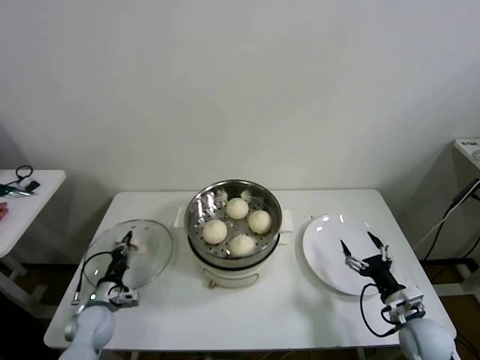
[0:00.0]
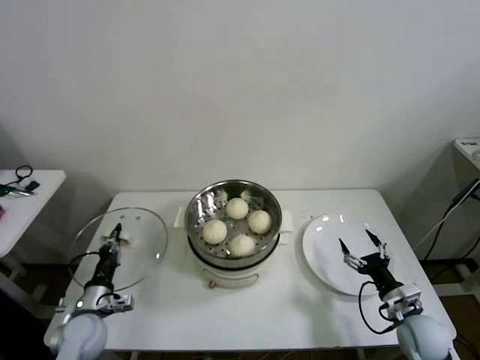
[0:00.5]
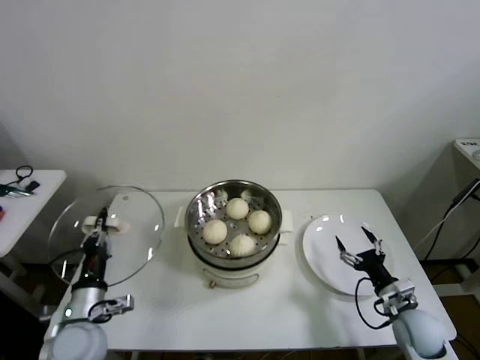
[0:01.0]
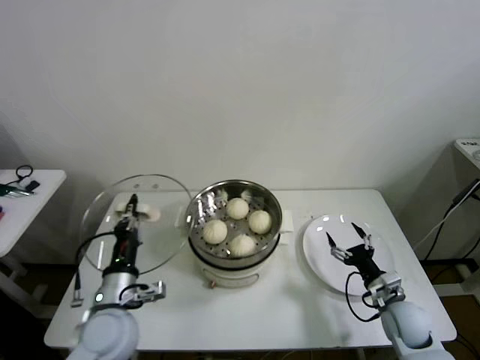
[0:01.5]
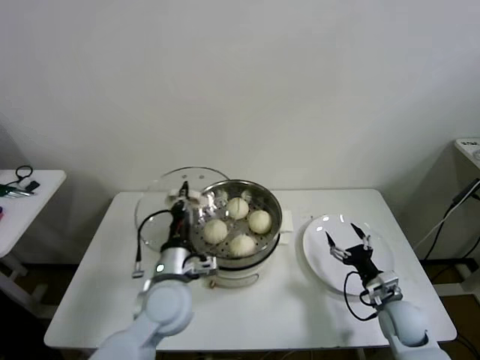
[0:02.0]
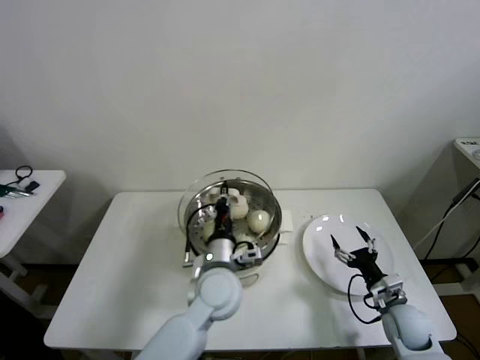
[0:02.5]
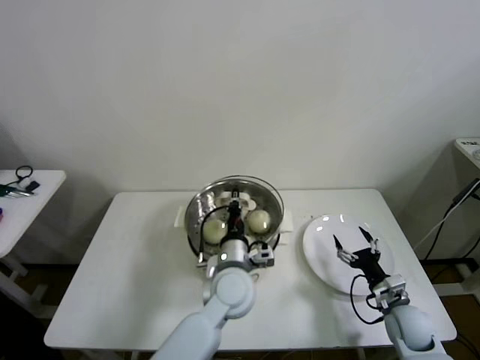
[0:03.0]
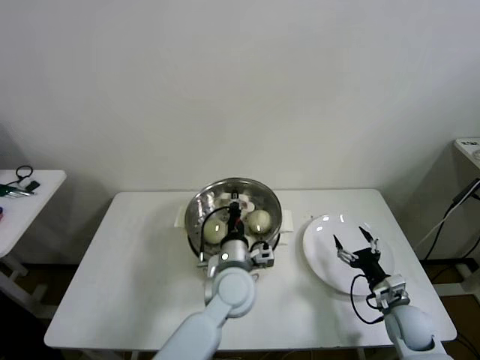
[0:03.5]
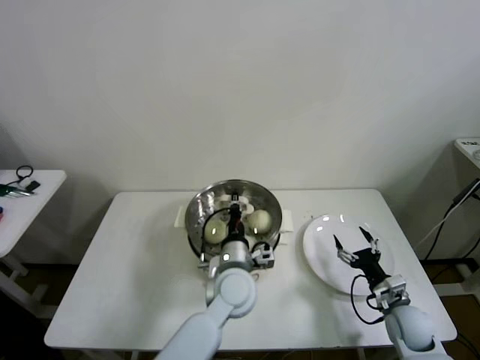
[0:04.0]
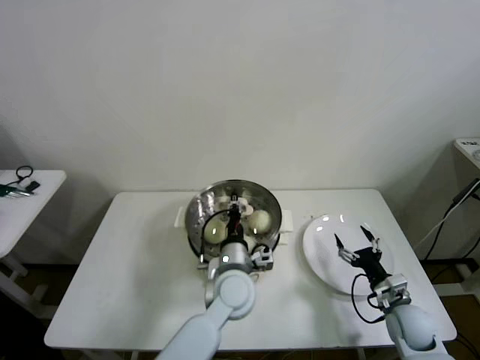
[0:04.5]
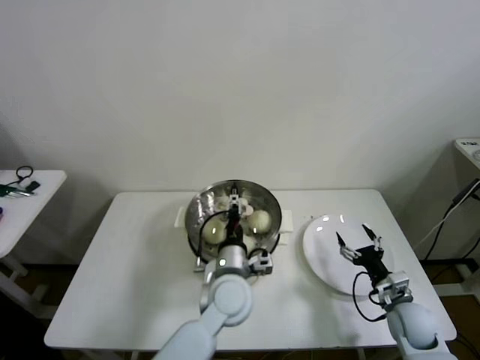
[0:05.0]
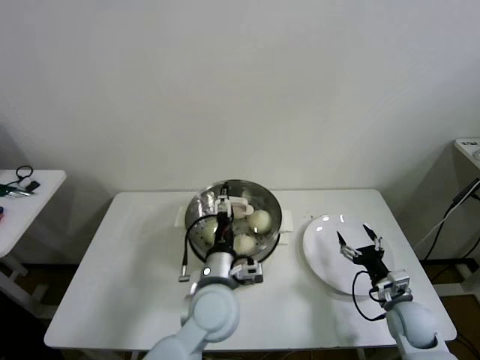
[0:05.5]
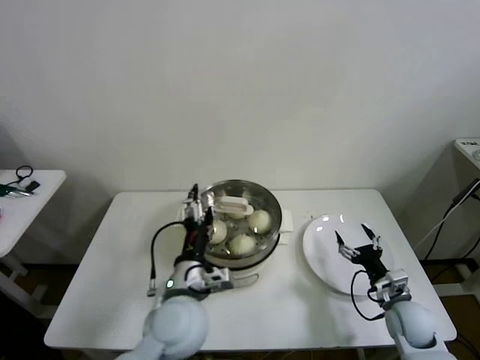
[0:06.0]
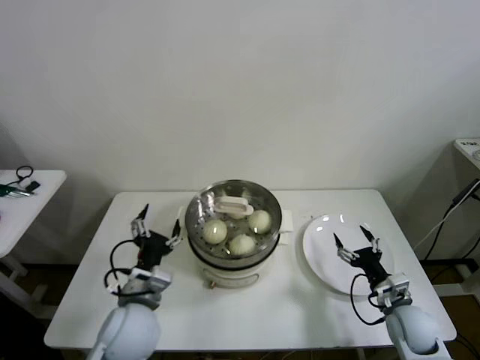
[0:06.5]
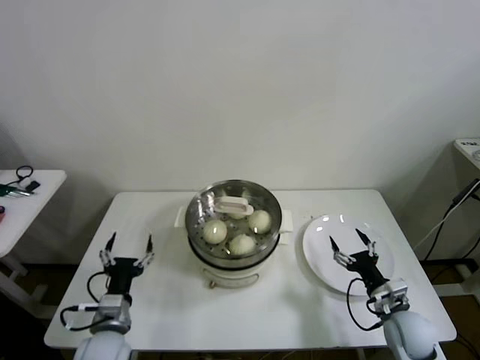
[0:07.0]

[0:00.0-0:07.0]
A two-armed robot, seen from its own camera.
Step, 0.0 to 4.5 s: Place the pot lid on the steamer with left gripper.
0.0 to 2.0 s: The left gripper heads to the right and upward, covering roughly 30 cm. Meanwhile the right gripper changes place by roughly 5 cm.
2.0 to 3.5 s: The left gripper moves to the right, roughly 15 cm.
3.5 to 5.0 s: The left gripper opens.
5.0 to 7.0 s: The left gripper goes some 25 cm to the left.

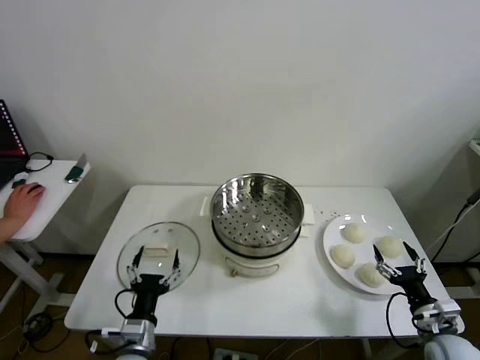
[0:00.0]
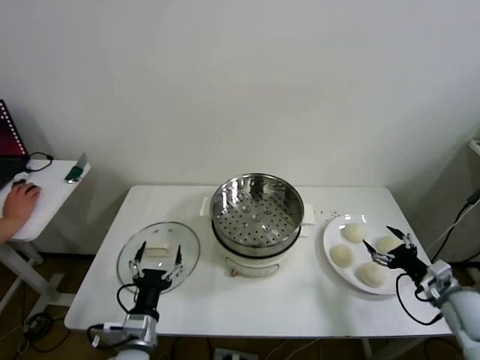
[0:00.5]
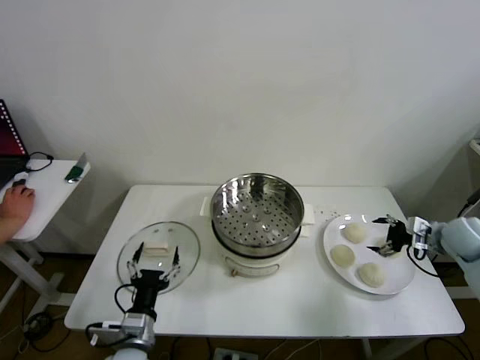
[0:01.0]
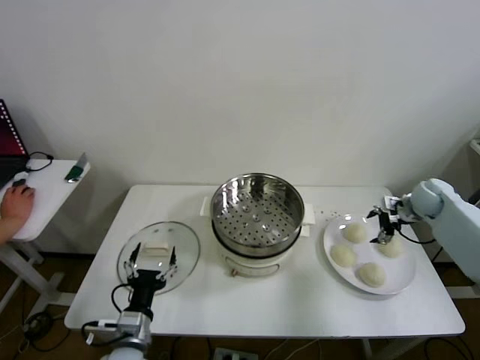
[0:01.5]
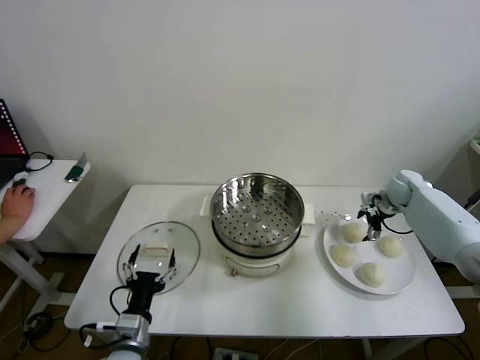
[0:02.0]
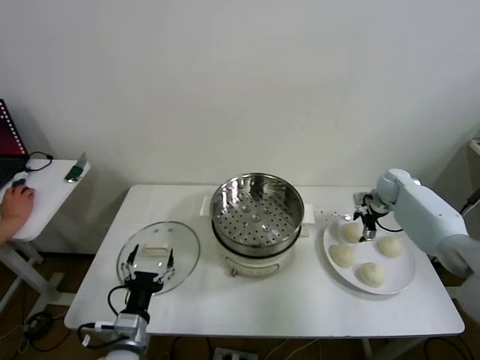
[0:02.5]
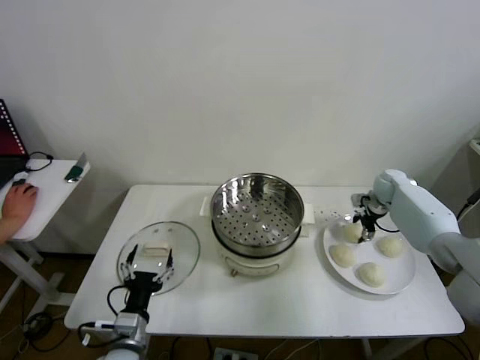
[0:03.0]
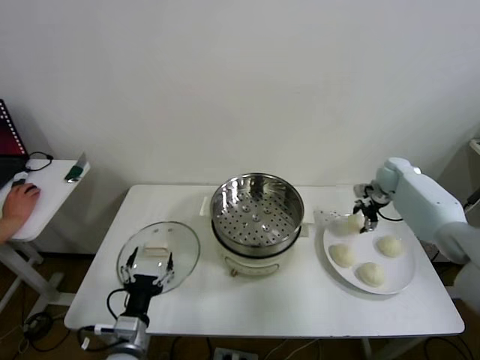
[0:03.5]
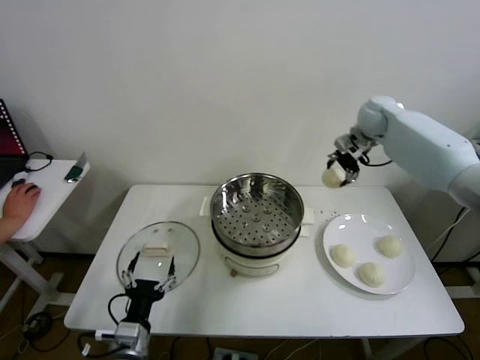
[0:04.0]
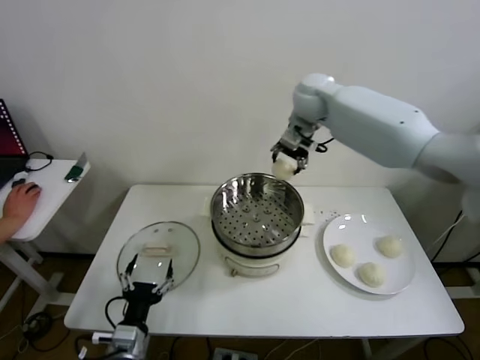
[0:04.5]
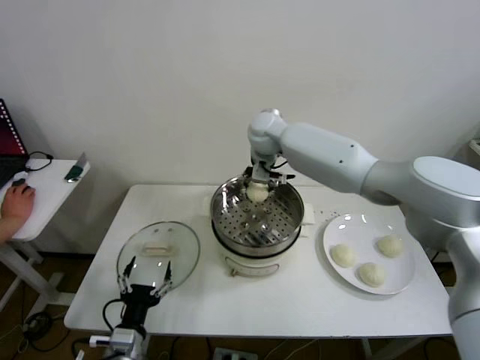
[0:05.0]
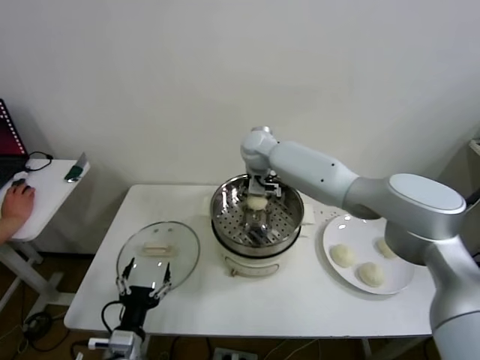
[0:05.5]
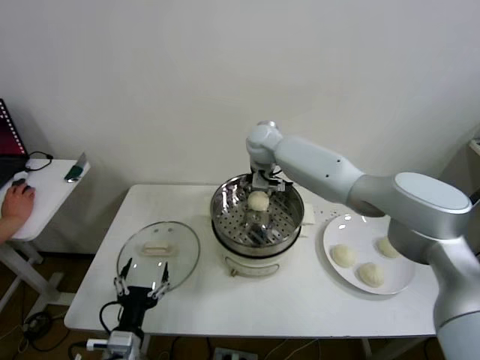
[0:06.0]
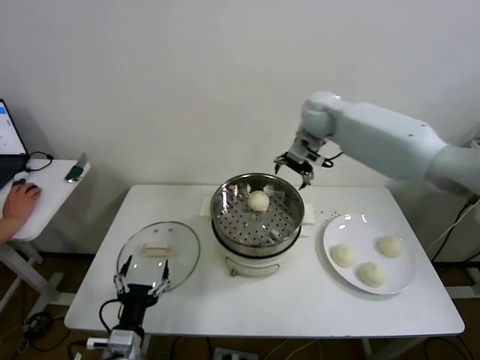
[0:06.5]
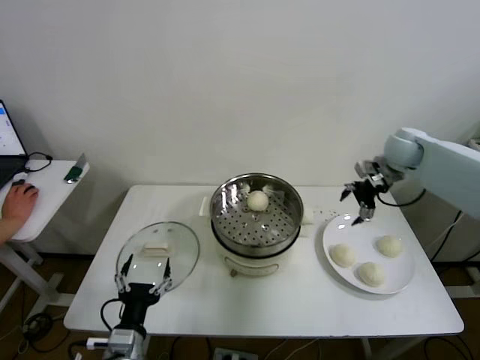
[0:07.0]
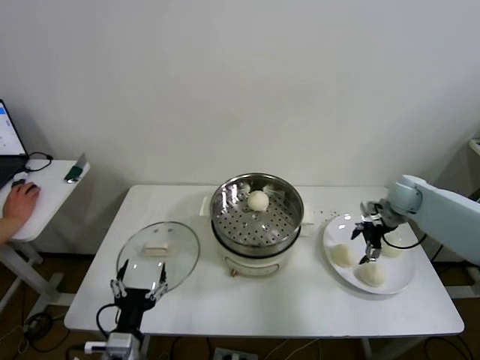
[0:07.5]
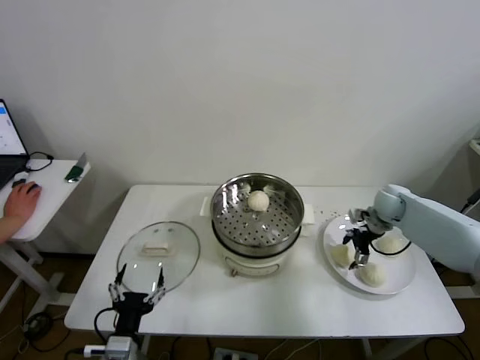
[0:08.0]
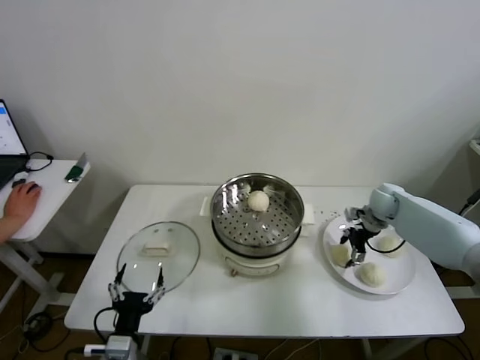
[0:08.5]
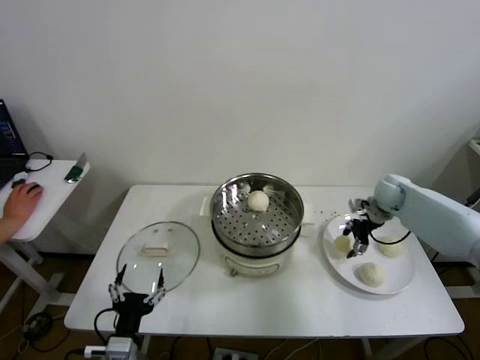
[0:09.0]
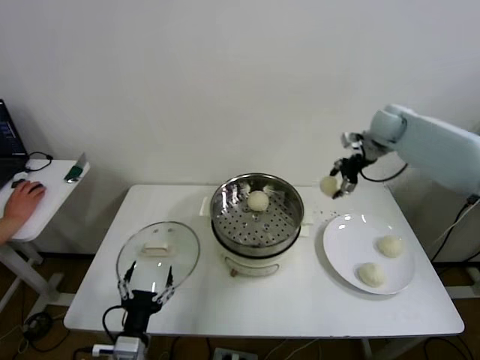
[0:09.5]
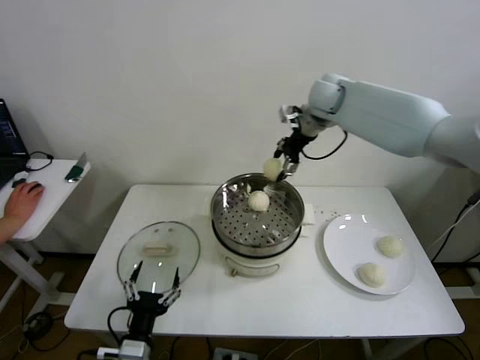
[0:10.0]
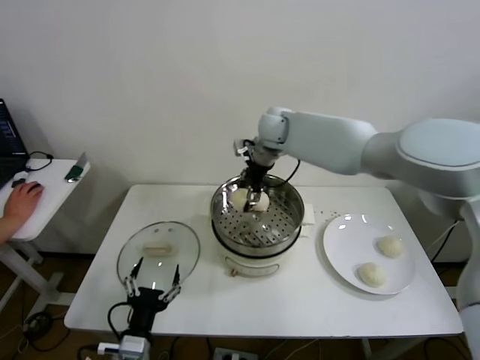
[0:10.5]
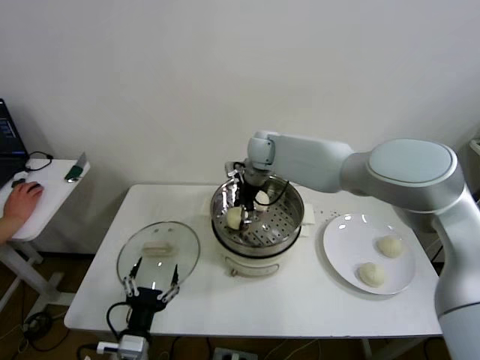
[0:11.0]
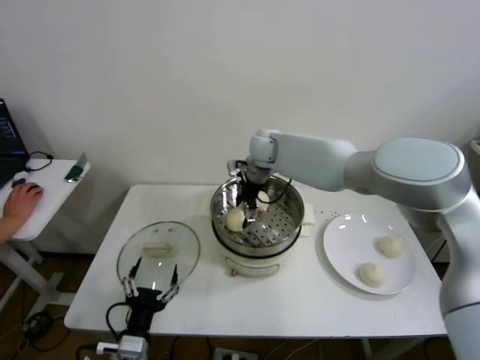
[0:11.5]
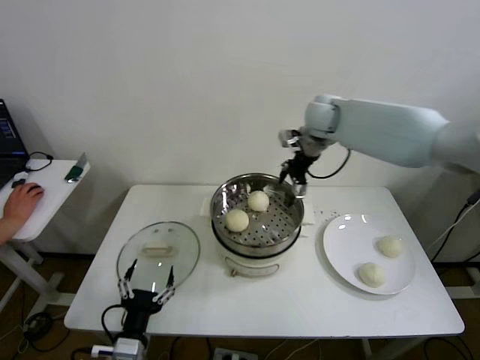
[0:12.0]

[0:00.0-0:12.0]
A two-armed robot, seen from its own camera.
Step, 0.0 to 3.0 s: Grasp the baozi in the plate with right gripper.
Step, 3.5 to 5.5 s: Place the baozi on the steamer with right gripper.
Step, 6.0 to 8.5 s: Grasp the baozi in the plate with right gripper.
Step, 9.0 to 11.5 s: Place the baozi on the steamer with right gripper.
2.0 to 4.0 s: The right gripper moves upward and to the left, roughly 25 cm, and closes up.
4.0 to 6.0 s: The right gripper is displaced to the left by some 25 cm, and opens.
6.0 to 8.0 s: The right gripper shifts some 35 cm to the right and downward.
8.0 to 10.0 s: The right gripper moves upward and to the left, roughly 35 cm, and closes its fingers.
10.0 to 12.0 s: The right gripper goes to the left and returns, roughly 10 cm each way, and opens up.

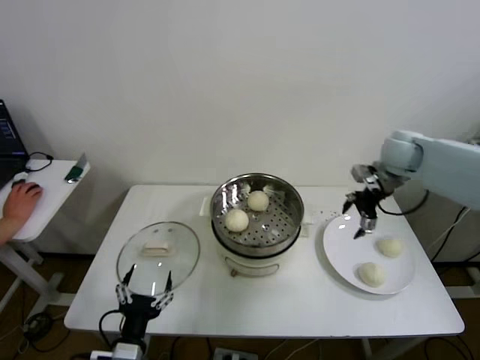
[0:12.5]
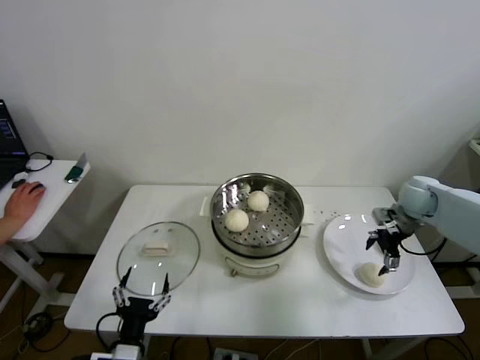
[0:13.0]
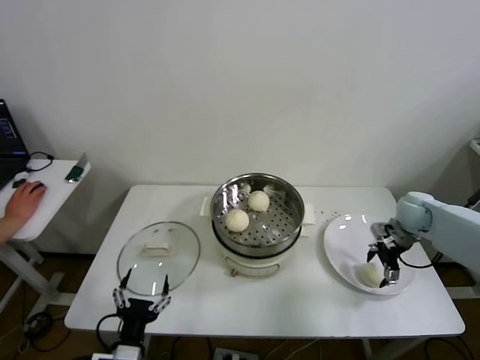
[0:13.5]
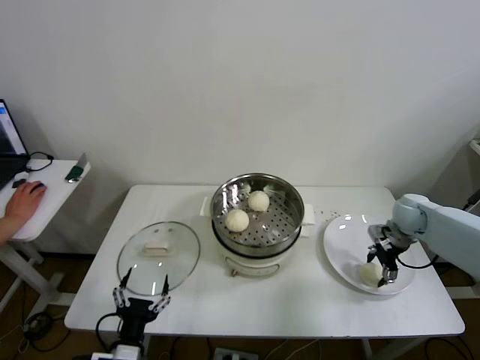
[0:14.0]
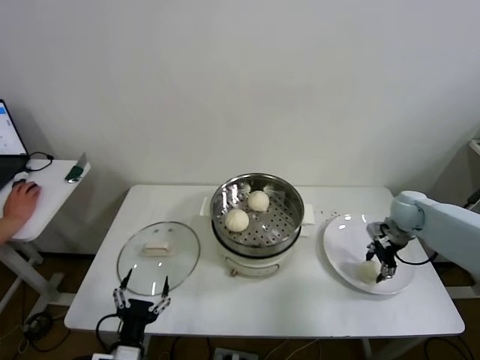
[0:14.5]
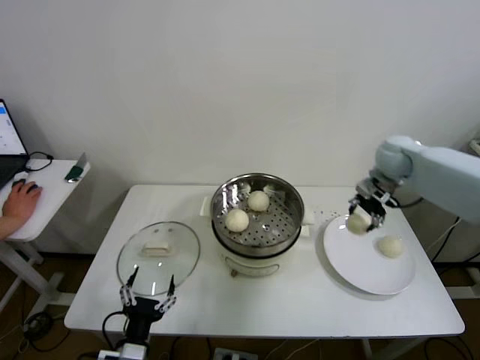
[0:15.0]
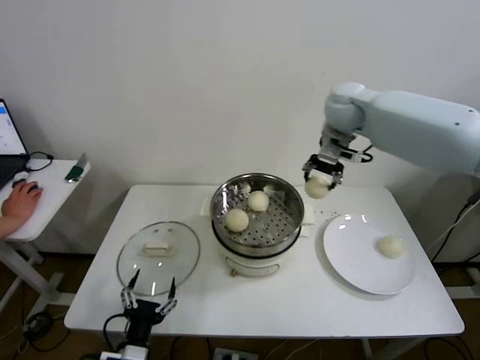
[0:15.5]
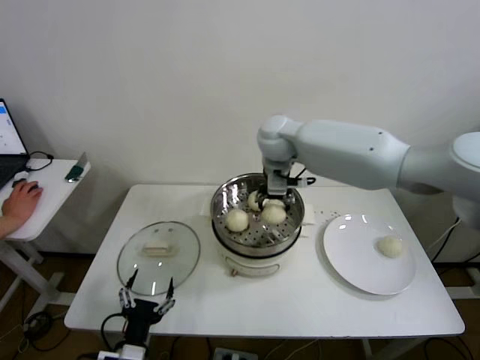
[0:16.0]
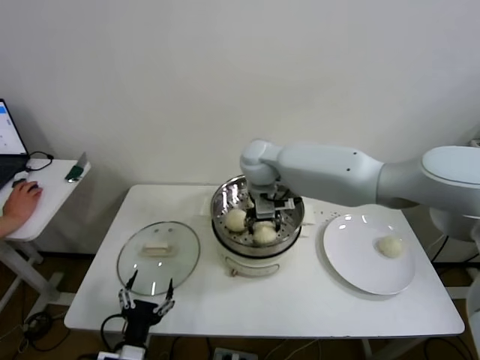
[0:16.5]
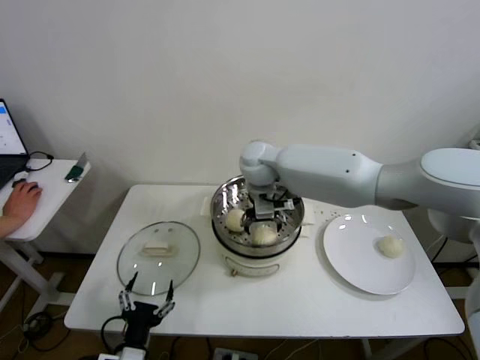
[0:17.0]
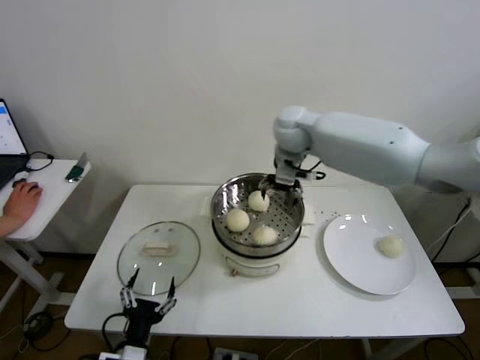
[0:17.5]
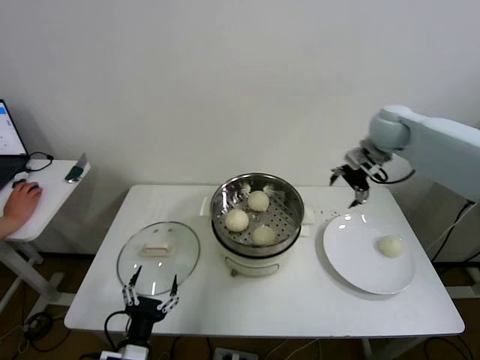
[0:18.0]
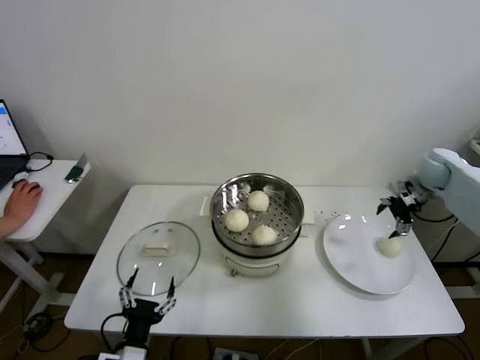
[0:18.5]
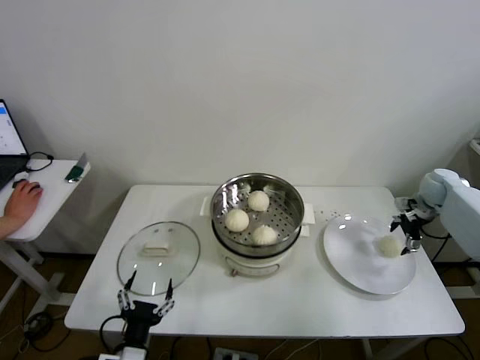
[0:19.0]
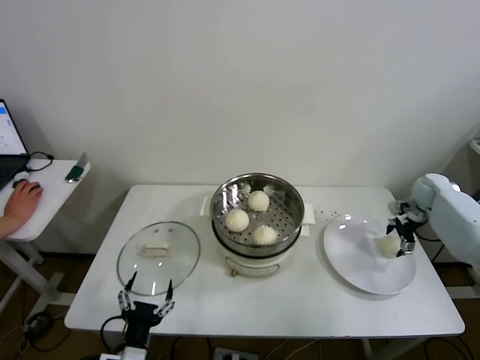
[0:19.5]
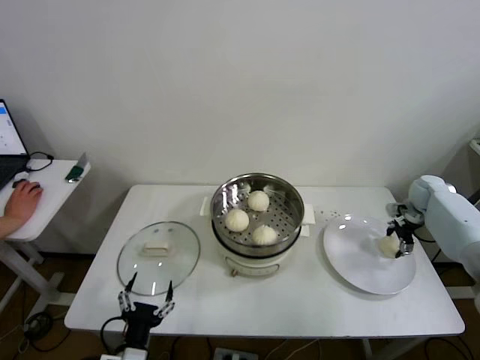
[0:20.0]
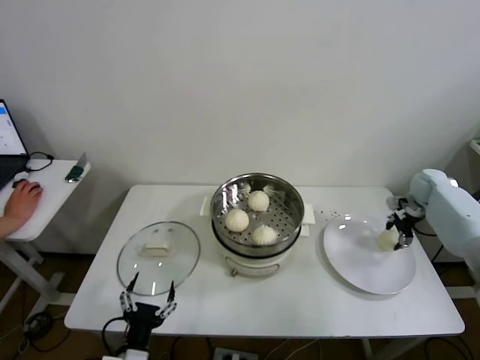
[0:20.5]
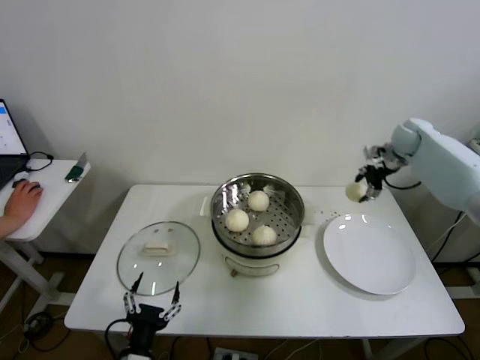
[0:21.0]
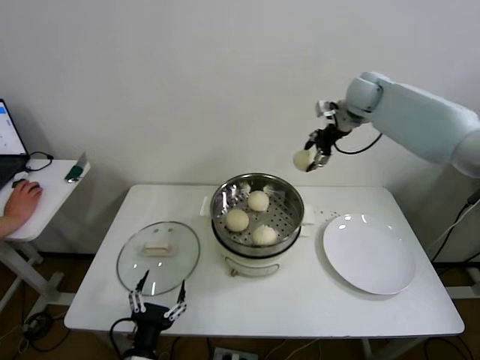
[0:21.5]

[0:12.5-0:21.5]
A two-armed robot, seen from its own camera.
Step, 12.5 to 14.0 s: Grasp the baozi in the plate with right gripper.
Step, 14.5 to 16.5 s: Place the baozi on the steamer with right gripper.
Step, 17.0 to 20.0 s: Grasp the baozi in the plate with right gripper.
12.5 to 14.5 s: The right gripper goes approximately 15 cm downward, and closes up.
14.5 to 17.0 s: The right gripper moves to the left, some 40 cm, and opens its fingers.
17.0 to 19.5 s: The right gripper heads to the right, covering about 50 cm.
19.5 to 21.5 s: The right gripper goes roughly 35 cm upward and to the left, and closes up.
